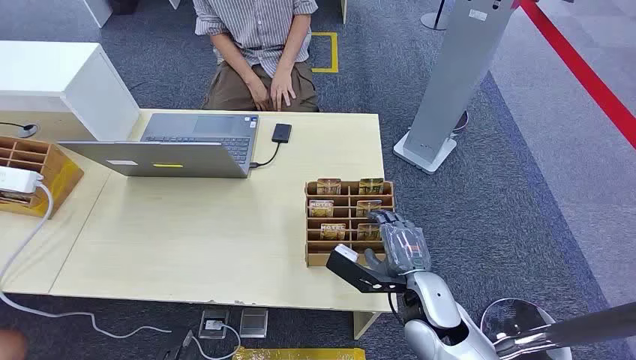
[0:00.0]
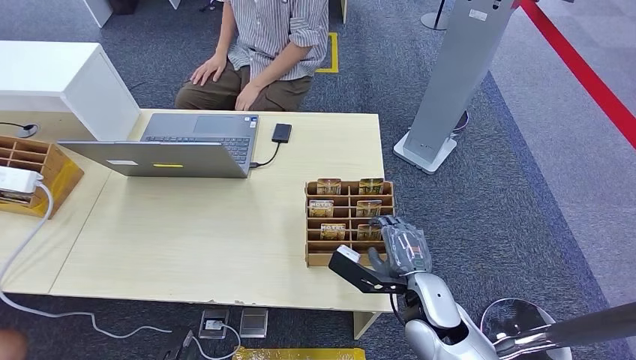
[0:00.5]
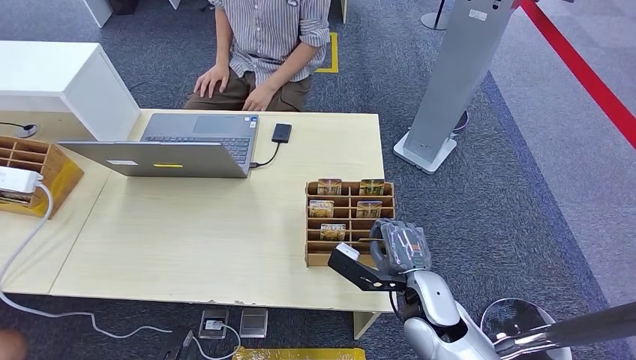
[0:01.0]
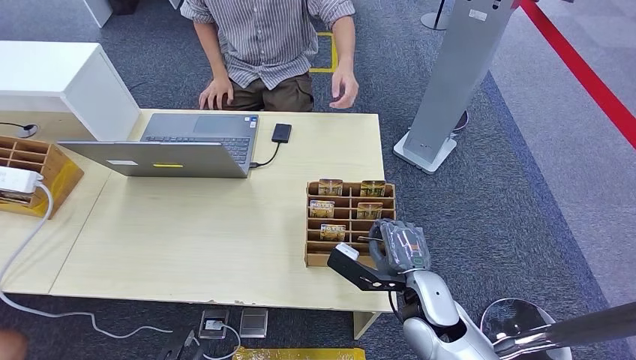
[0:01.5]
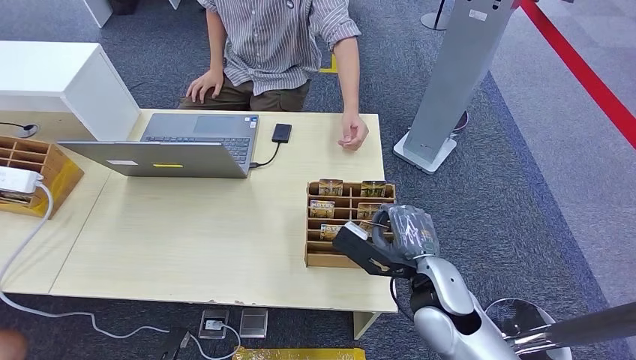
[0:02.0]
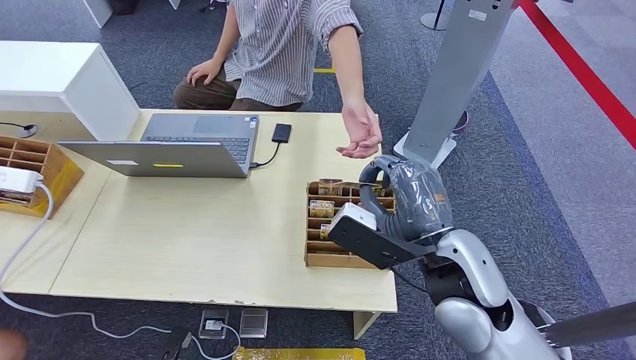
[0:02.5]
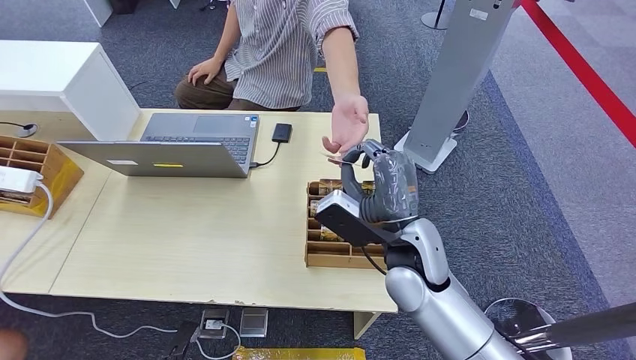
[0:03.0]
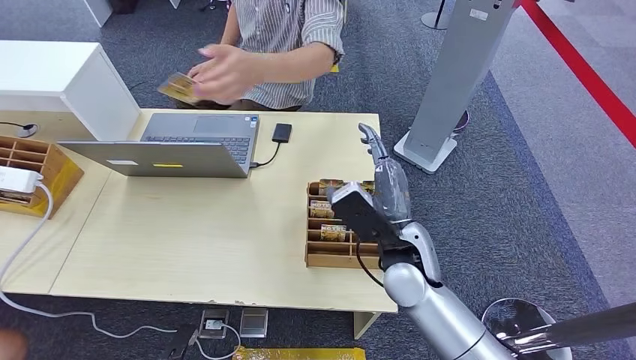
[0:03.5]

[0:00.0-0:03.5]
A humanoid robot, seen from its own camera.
Step, 0:00.0 to 0:02.0: Pick up the room card from the card holder.
Step, 0:03.0 to 0:03.5: Hand the room card to the target.
0:02.0 to 0:03.5: The right hand goes about 5 cm to the left, and reaches approximately 10 cm upward, then returns.
